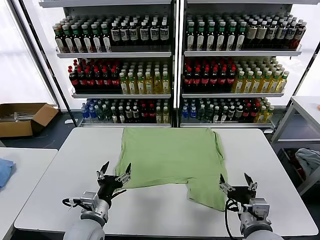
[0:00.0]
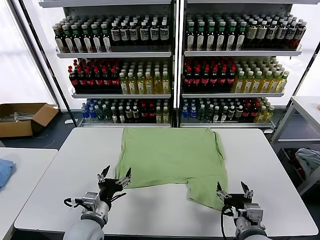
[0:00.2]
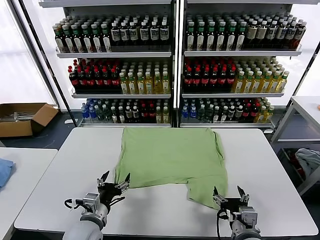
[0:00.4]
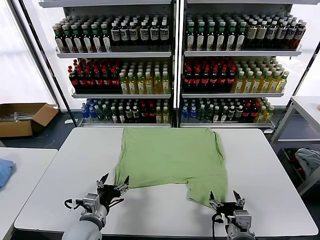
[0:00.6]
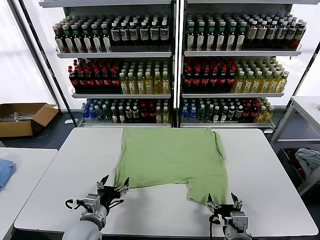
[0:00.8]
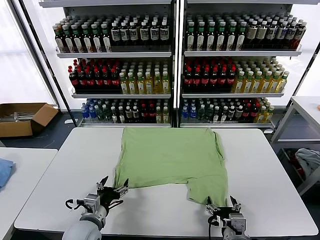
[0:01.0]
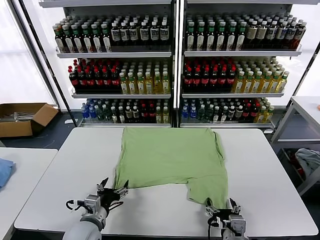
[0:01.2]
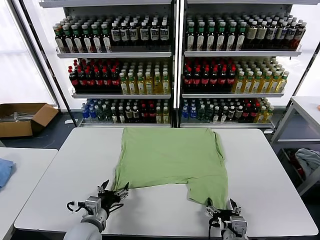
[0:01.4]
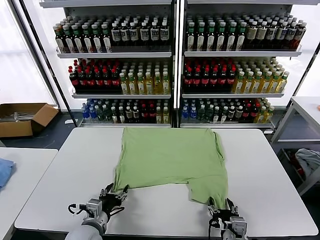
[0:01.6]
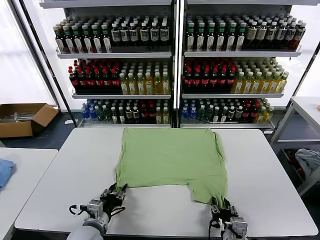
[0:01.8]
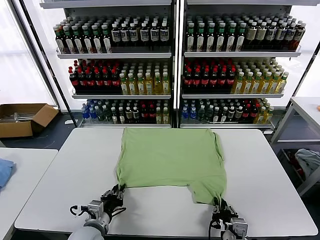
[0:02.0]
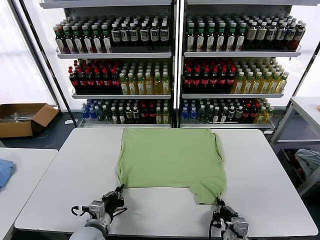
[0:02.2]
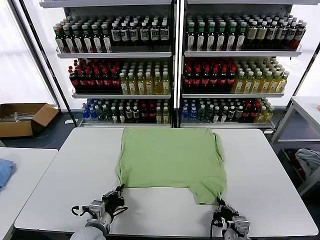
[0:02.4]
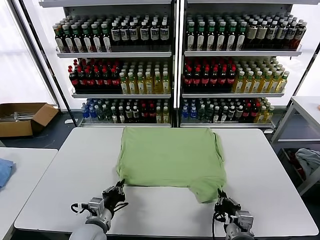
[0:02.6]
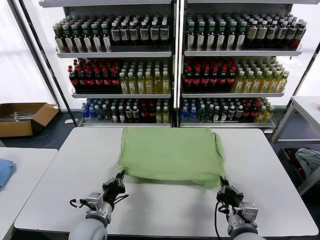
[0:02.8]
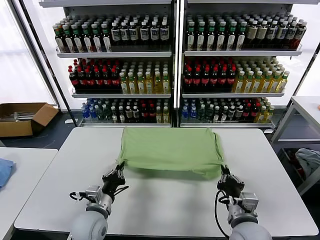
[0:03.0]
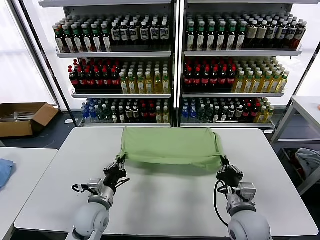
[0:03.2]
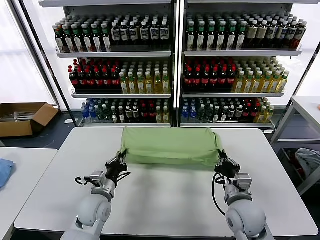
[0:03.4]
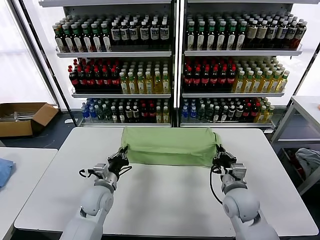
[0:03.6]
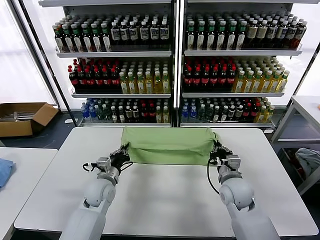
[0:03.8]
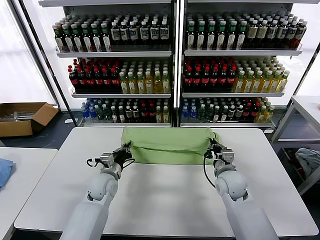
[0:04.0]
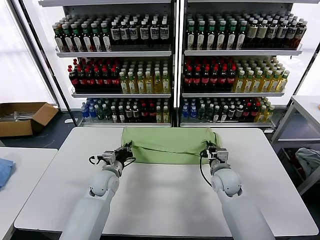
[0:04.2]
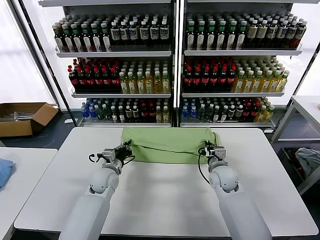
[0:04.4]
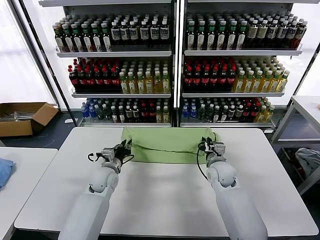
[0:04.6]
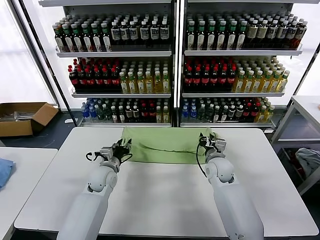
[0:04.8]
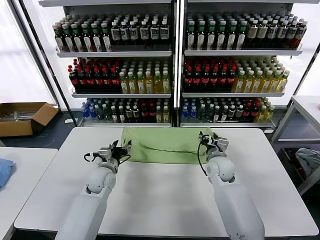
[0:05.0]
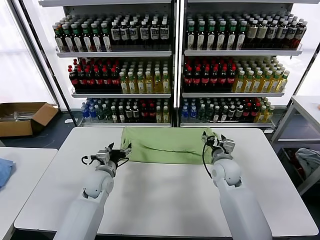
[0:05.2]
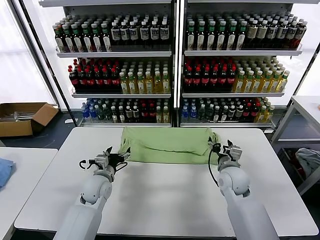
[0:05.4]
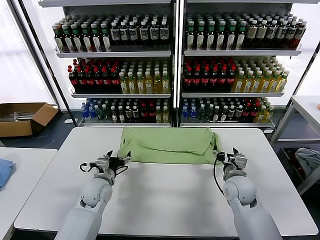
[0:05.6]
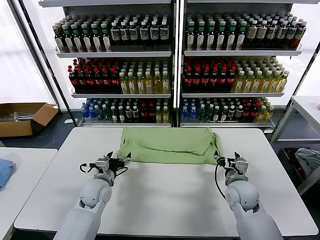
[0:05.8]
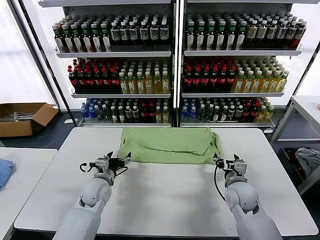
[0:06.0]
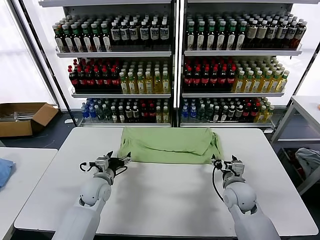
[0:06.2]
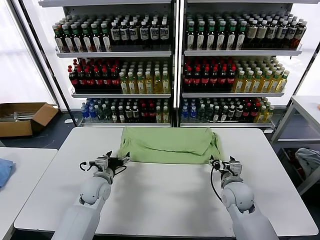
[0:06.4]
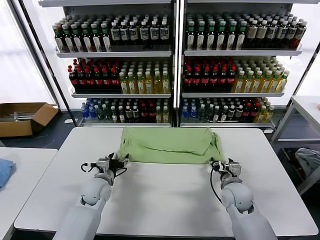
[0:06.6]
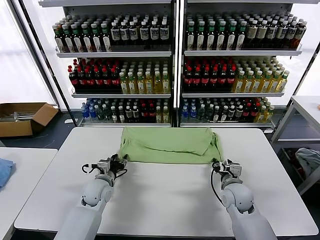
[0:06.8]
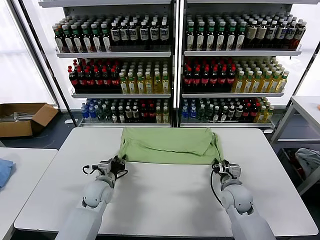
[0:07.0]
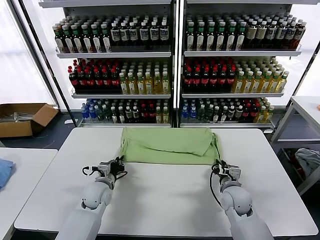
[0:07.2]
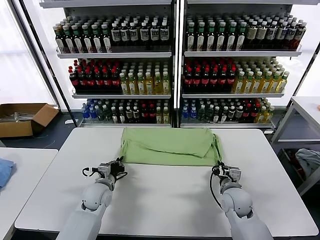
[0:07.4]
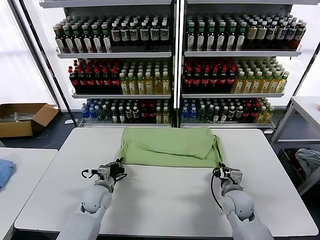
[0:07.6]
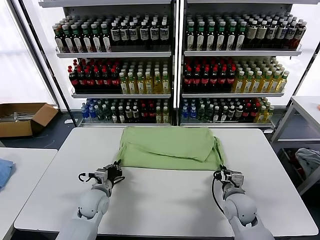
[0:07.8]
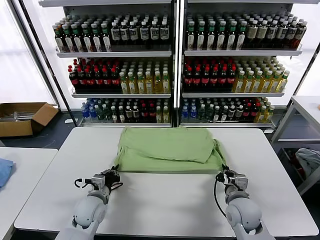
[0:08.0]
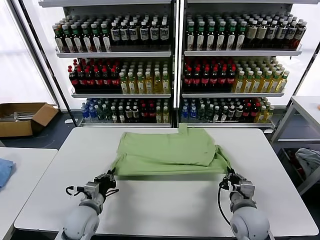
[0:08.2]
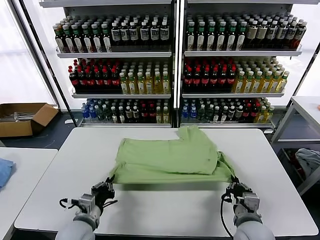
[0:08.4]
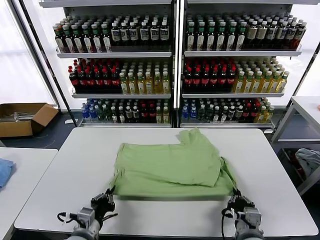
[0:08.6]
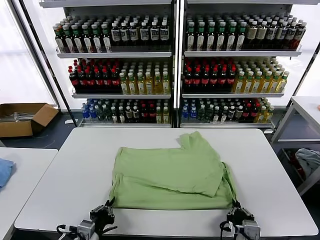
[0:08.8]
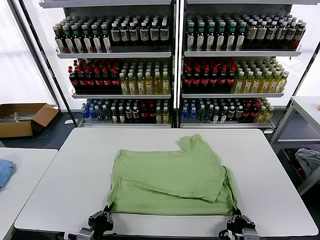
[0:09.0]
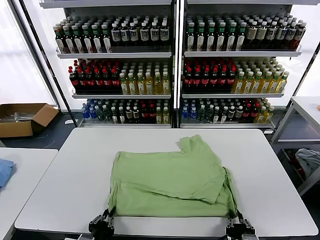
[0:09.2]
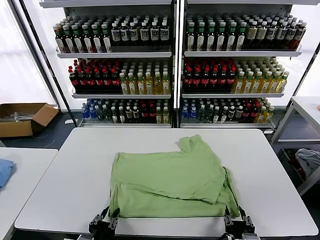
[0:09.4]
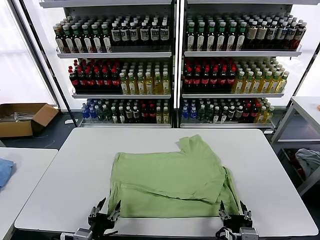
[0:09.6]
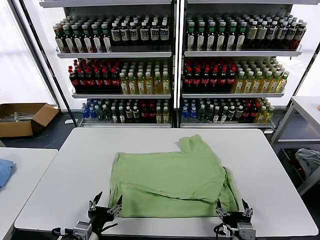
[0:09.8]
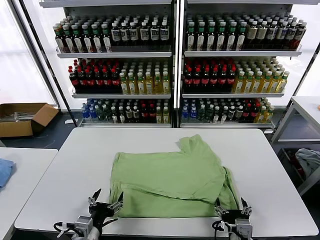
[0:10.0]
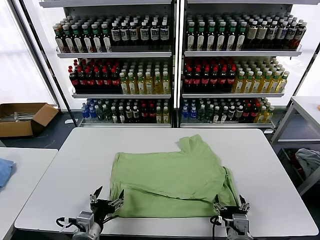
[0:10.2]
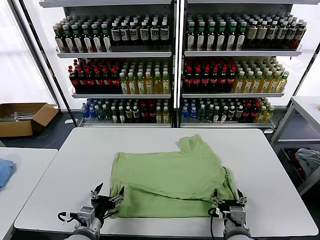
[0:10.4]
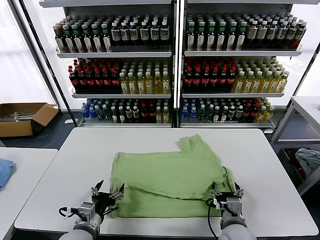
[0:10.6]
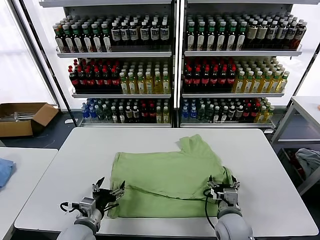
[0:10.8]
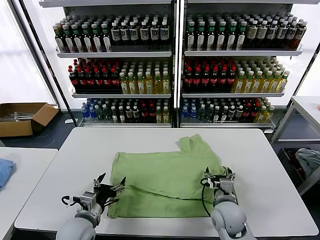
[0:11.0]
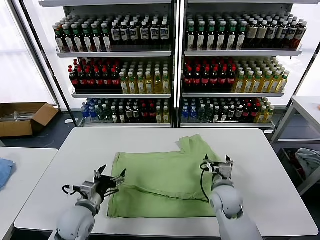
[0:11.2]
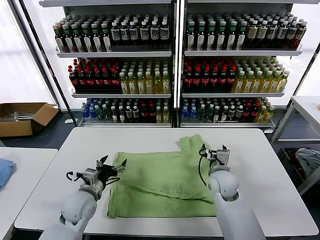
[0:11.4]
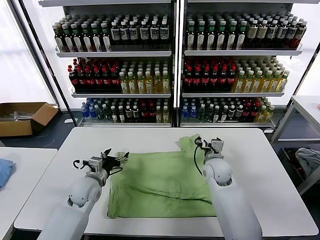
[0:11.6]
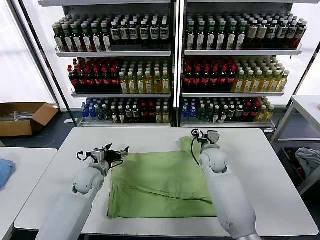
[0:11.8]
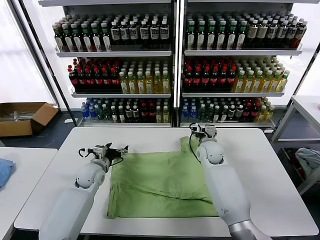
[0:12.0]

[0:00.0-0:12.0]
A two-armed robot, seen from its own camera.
Task of the whole recording: fold and organize the clothes.
Step, 0:00.0 to 0:02.2: use both grippers simultaneously to clamp the lower edge of the clothing fabric.
Step, 0:02.4 to 0:05.0: use both grippers to drag the lower edge of the fabric forward and fold it over the upper edge.
Step, 0:05.2 to 0:09.4: Drag the clothes downward with both gripper.
0:01.6 to 0:03.0: The right gripper is displaced forward and upward by roughly 10 cm, and closes up. Meanwhile the left gripper ends up some 5 cm from where it was, and closes.
0:03.0 to 0:04.4: Both grippers travel together forward, roughly 20 cm.
0:04.4 to 0:06.0: The left gripper opens. Meanwhile the right gripper goes approximately 10 cm backward, and opens its fingers.
0:06.0 to 0:07.6: The right gripper closes; the left gripper closes.
0:07.6 to 0:09.0: The two grippers go approximately 20 cm backward.
0:09.0 to 0:10.4: The grippers both shift forward by about 10 cm. The left gripper opens up; the right gripper opens up.
0:10.4 to 0:12.0: The two grippers go some 30 cm forward.

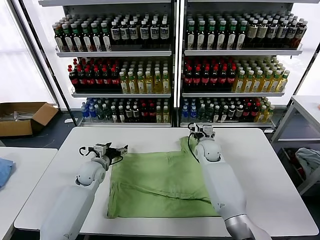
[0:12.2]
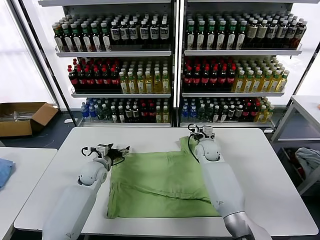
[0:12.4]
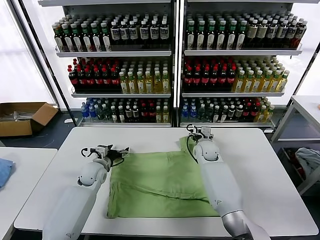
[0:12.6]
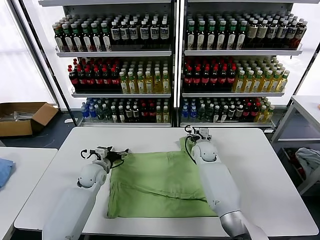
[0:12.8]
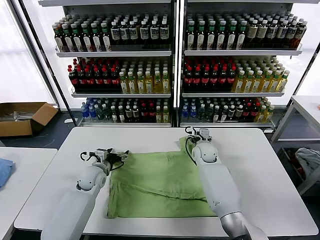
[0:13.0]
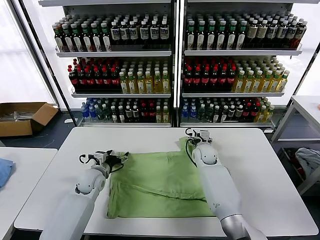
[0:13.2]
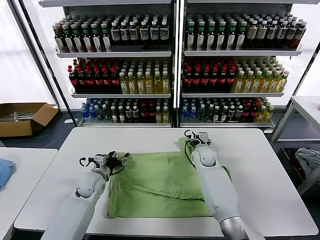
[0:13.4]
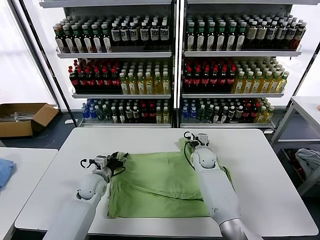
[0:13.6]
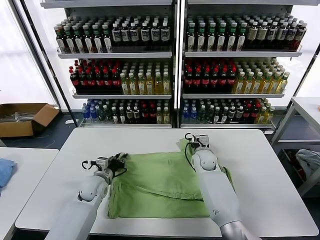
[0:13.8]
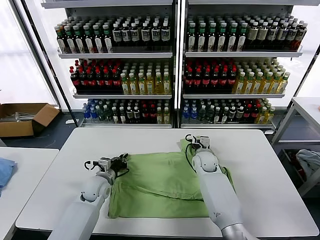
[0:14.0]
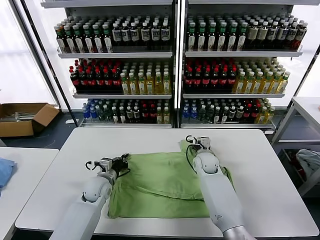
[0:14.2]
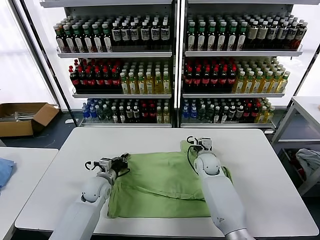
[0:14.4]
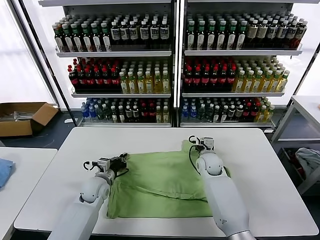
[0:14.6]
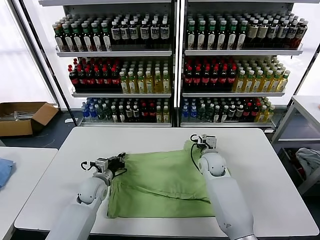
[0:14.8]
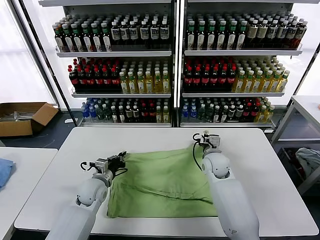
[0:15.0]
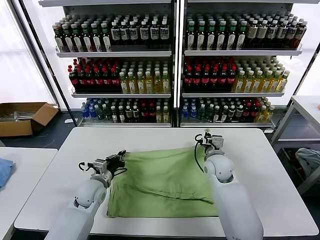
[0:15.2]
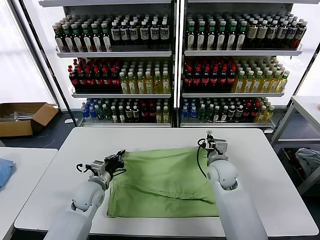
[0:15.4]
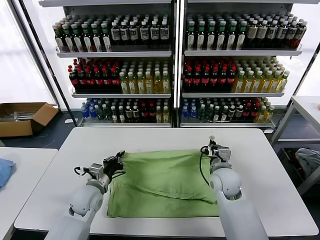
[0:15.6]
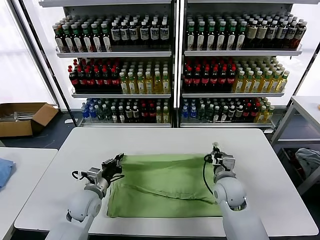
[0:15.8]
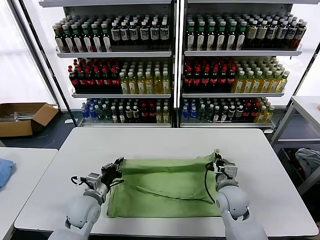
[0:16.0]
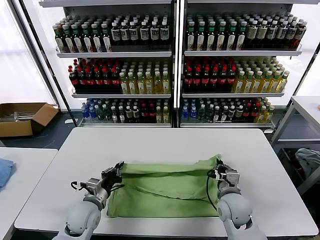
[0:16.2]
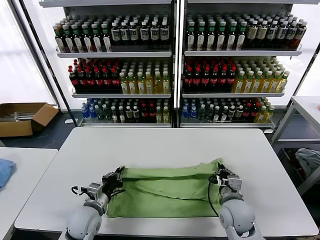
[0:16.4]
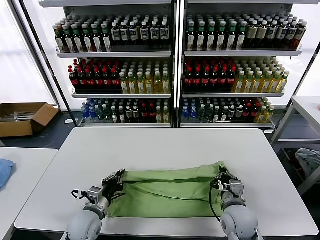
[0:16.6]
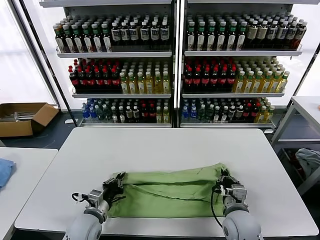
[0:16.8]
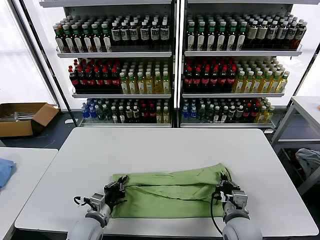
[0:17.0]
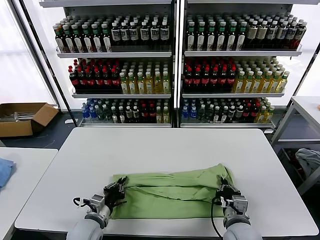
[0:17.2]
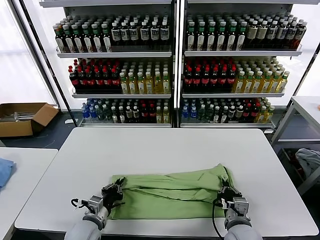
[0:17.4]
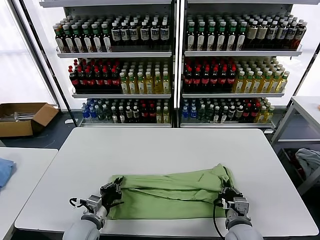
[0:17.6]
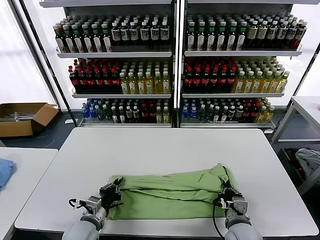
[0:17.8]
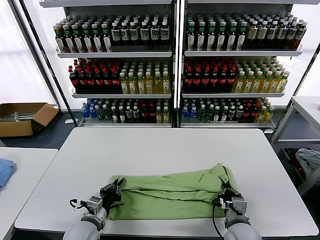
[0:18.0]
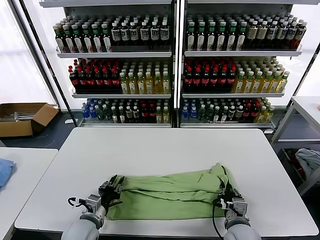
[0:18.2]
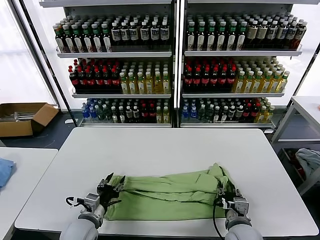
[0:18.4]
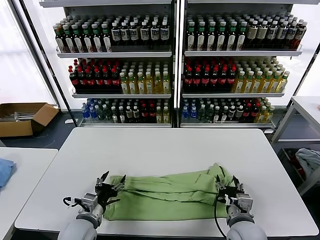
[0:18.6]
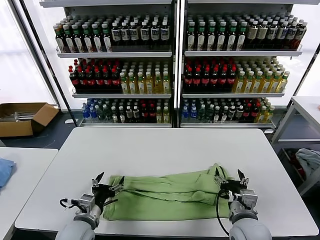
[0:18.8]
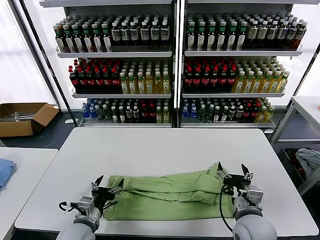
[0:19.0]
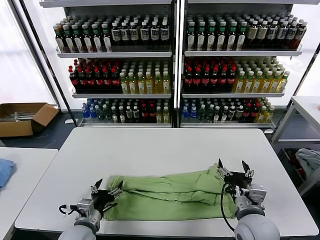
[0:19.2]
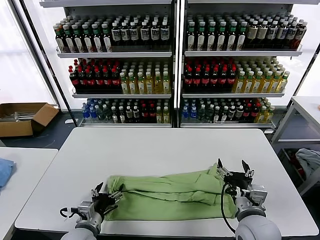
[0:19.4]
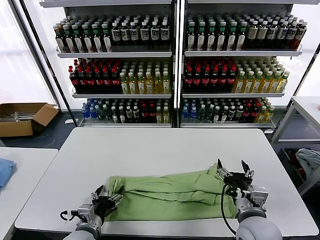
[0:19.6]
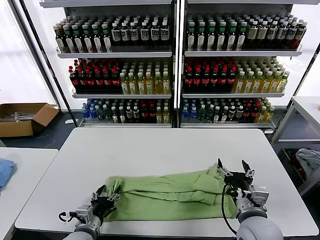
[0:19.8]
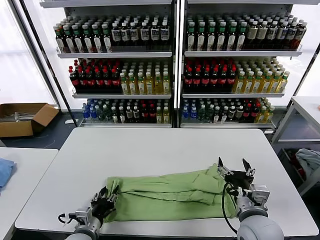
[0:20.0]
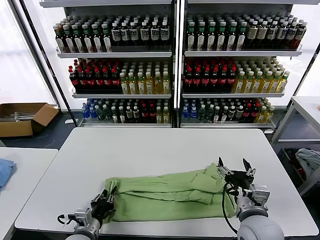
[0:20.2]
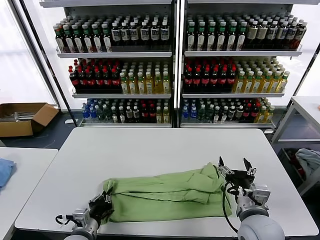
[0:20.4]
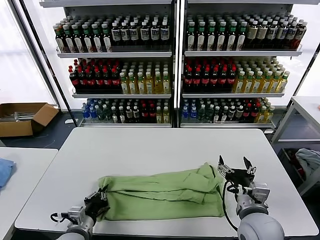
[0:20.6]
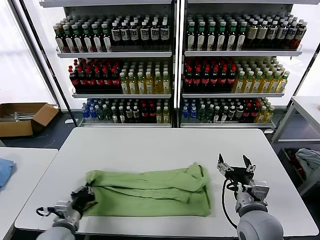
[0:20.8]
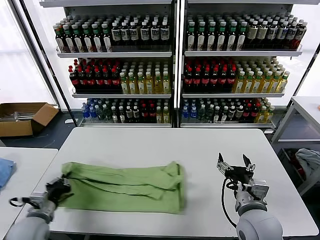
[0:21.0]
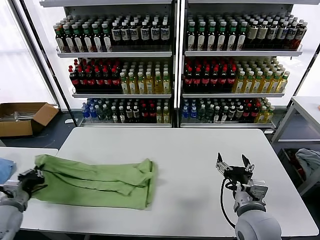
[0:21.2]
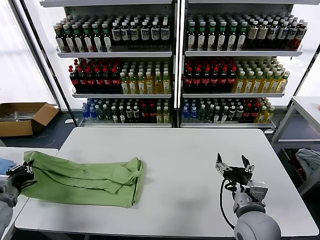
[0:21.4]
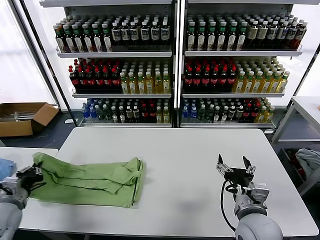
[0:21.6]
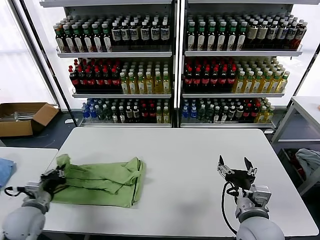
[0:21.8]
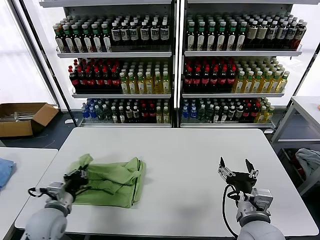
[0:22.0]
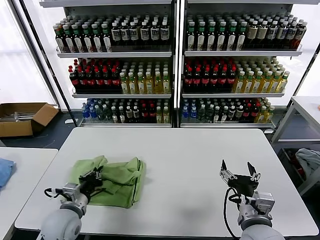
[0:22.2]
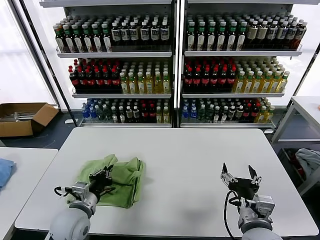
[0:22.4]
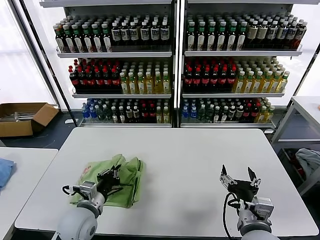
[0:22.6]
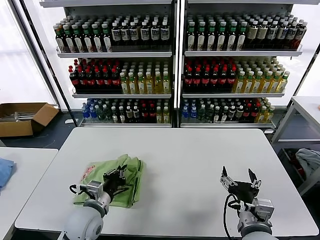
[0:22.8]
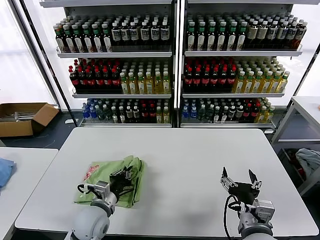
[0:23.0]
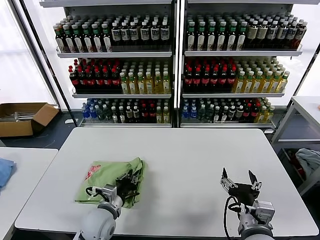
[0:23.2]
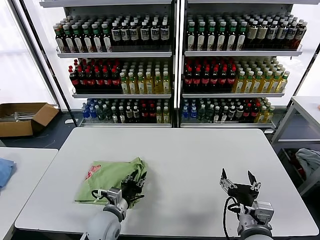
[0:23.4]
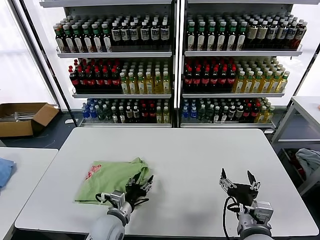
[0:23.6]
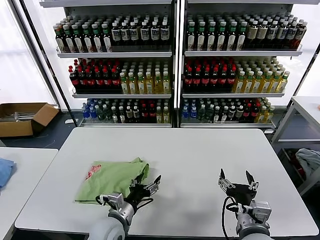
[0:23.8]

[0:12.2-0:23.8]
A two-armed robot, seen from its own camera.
Task of the whole recording: fold and organize the clothes.
Step, 0:12.2 to 0:14.2: use both grippers simultaneously to clamp the upper edge of the clothing fabric.
Step, 0:14.4 to 0:18.6: use both grippers to drag the upper edge of the fabric backward and fold it over the lower edge.
Step, 0:18.8 to 0:20.4: use the left gripper to clamp the left edge of the fabric.
Step, 0:20.6 to 0:23.6: use the left gripper to drag the left edge of the fabric to the left and folds it over the right edge.
0:12.2 to 0:13.6: The left gripper changes place by approximately 5 cm, and closes.
0:13.6 to 0:15.0: The left gripper closes up. The right gripper shifts about 10 cm backward and upward, and closes its fingers.
0:15.0 to 0:16.6: The left gripper heads backward, covering approximately 10 cm. Meanwhile the right gripper heads backward, covering about 20 cm.
0:16.6 to 0:18.0: There are only small adjustments of the grippers.
0:18.0 to 0:19.4: The left gripper opens its fingers; the right gripper goes some 10 cm upward, and opens.
0:19.4 to 0:21.0: The left gripper goes roughly 15 cm to the left, and closes.
0:21.0 to 0:22.4: The left gripper moves to the right, approximately 15 cm.
0:22.4 to 0:23.8: The left gripper travels to the right by about 10 cm, and opens.
